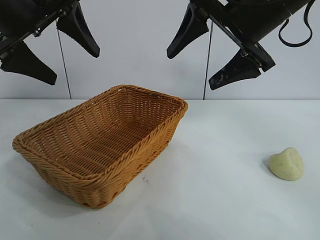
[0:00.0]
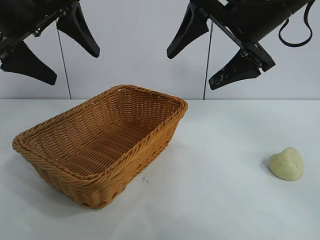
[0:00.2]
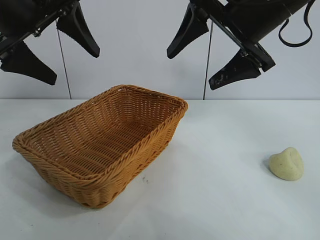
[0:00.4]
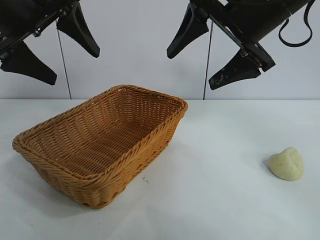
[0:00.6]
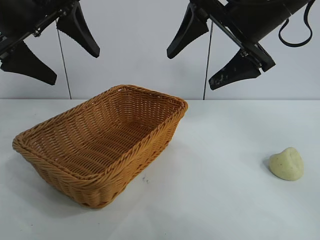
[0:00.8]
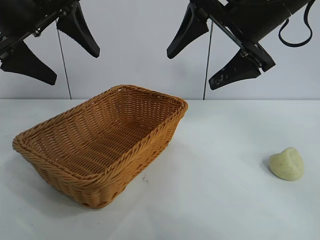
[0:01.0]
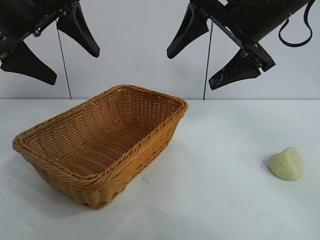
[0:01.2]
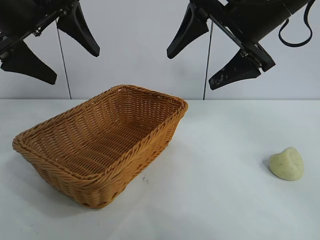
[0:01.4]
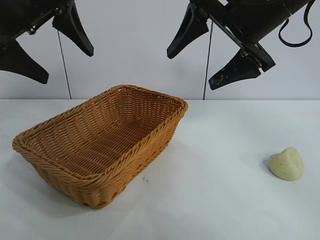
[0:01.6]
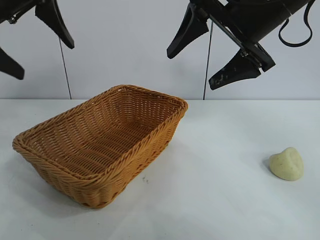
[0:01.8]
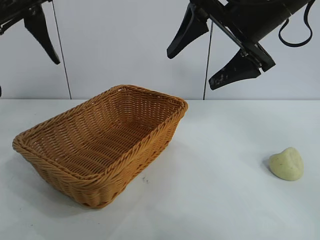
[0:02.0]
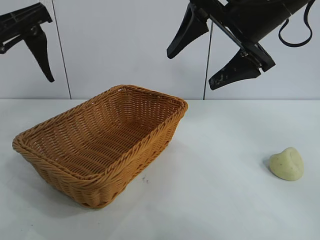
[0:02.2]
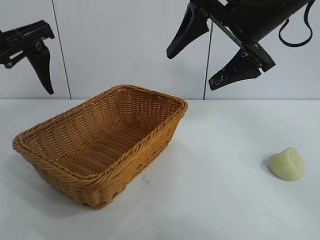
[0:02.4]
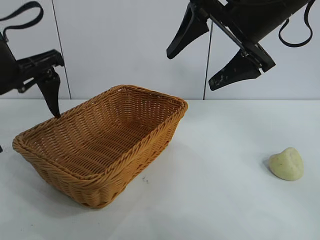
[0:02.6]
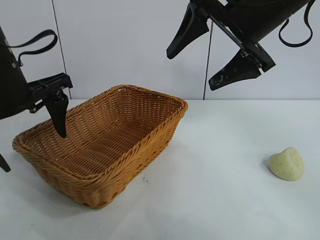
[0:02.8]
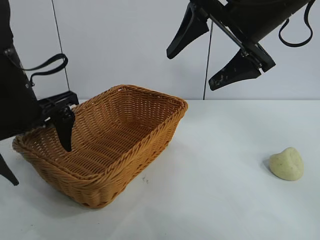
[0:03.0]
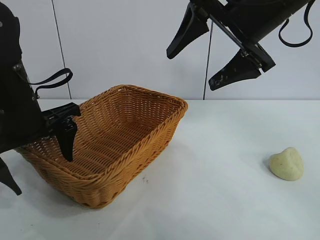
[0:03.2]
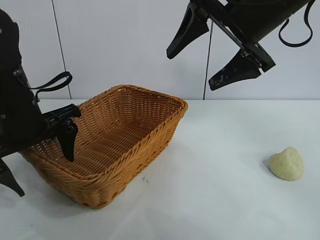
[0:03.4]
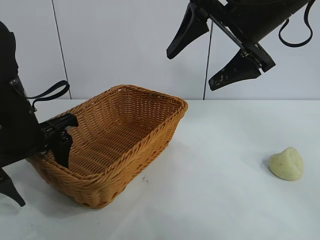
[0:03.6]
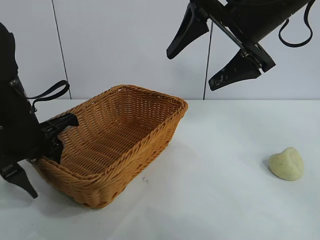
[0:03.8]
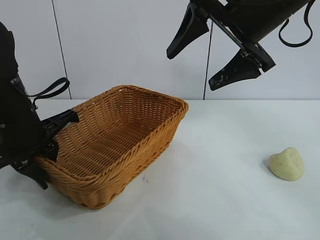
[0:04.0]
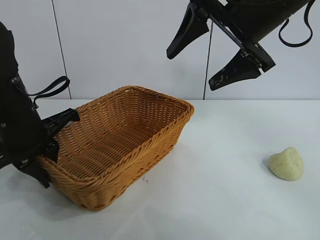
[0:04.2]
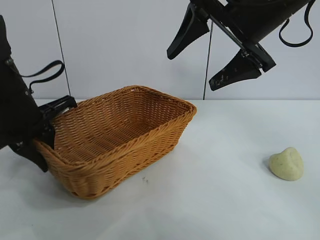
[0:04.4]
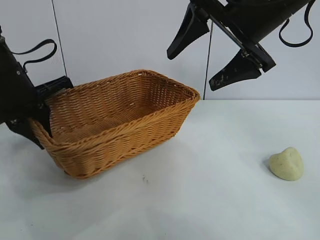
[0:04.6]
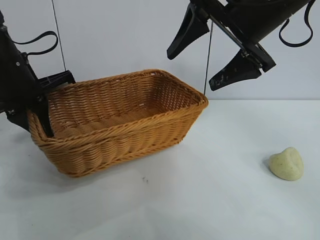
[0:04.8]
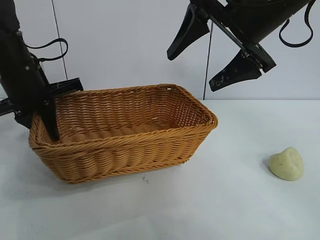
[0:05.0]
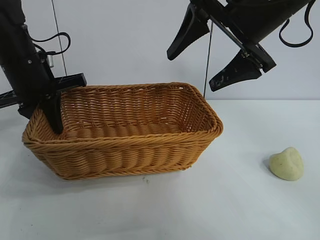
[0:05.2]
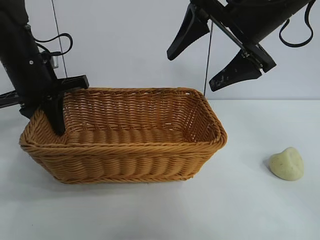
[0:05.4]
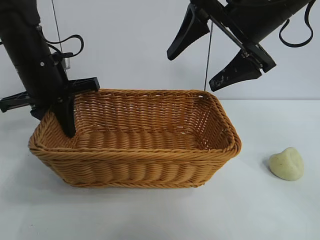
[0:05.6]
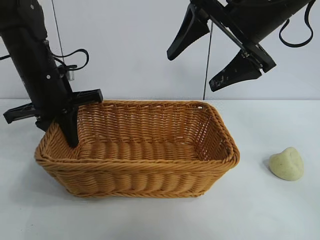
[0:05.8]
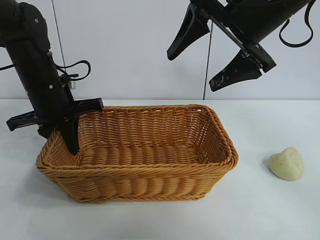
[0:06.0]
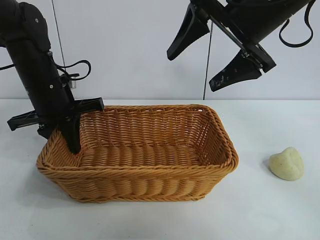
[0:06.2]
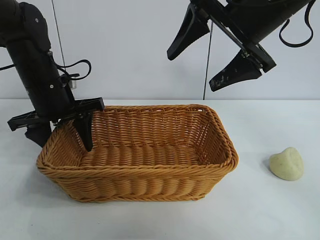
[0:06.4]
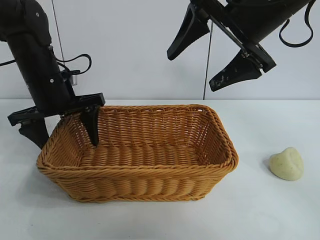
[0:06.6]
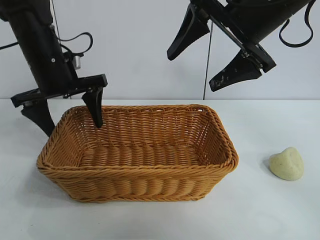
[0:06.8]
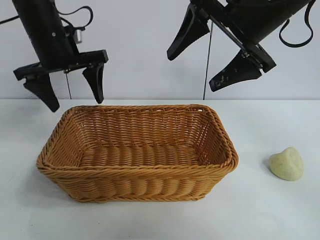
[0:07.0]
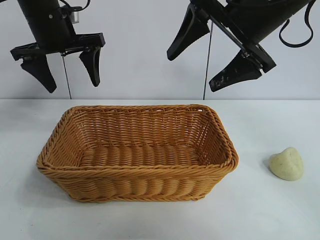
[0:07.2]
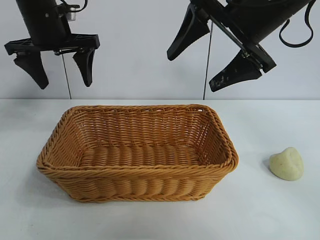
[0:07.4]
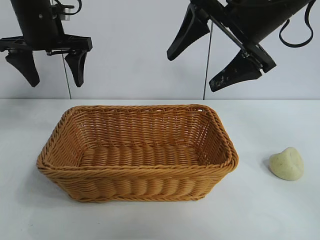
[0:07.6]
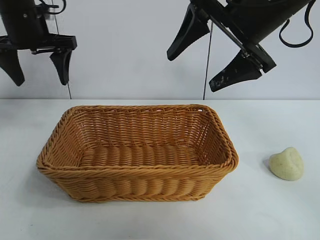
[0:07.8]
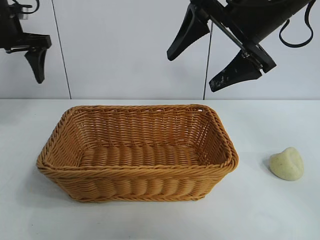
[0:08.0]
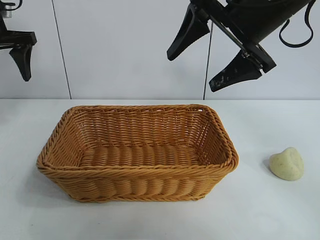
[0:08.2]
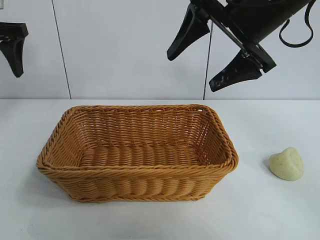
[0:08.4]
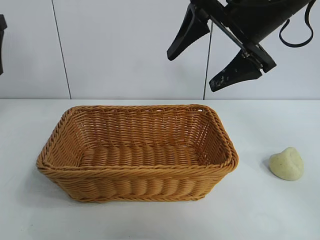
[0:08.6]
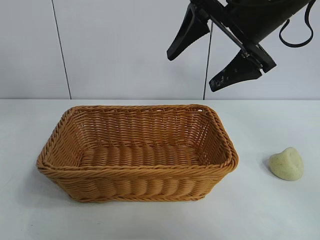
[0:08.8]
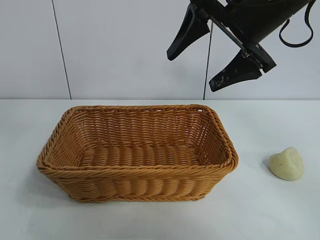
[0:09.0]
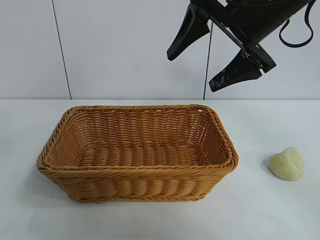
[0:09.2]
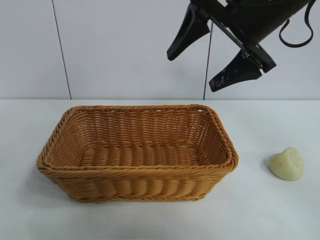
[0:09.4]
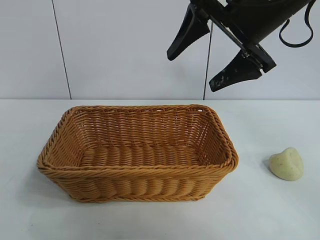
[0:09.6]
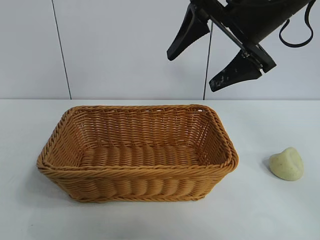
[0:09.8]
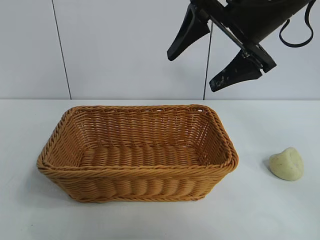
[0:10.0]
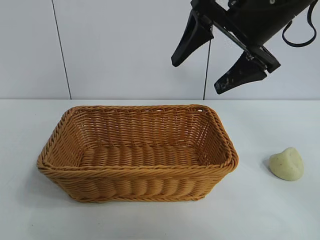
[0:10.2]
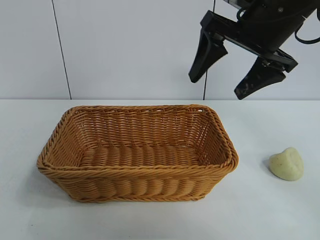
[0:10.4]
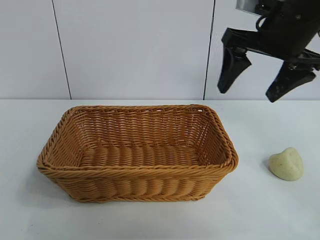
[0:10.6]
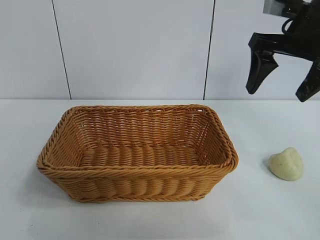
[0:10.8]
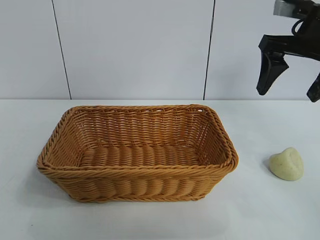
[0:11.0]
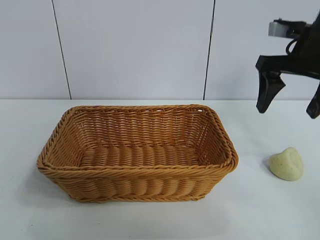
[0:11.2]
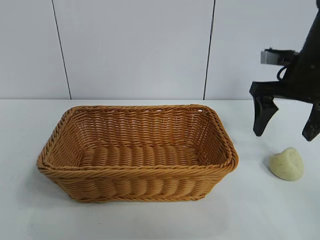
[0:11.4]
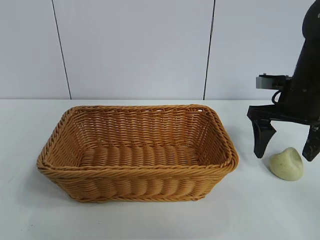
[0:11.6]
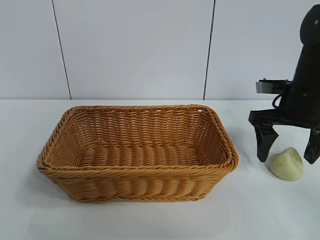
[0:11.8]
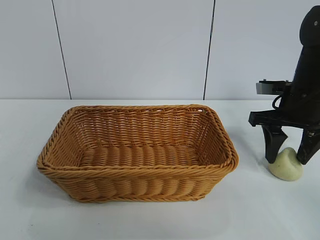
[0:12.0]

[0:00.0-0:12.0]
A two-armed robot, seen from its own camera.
Task of the whole recording: pick up the egg yolk pastry and put it into the basket.
Step, 0:01.4 to 0:04.0: Grasp the basket with left gripper.
Step, 0:04.2 to 0:06.2: Place the basket in the center of view with left gripper.

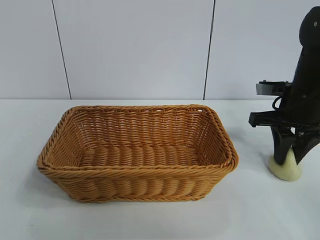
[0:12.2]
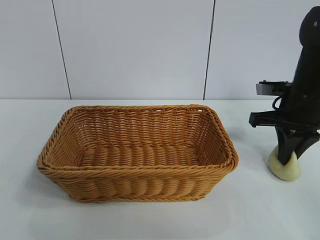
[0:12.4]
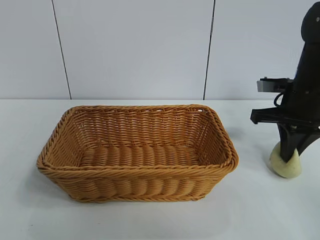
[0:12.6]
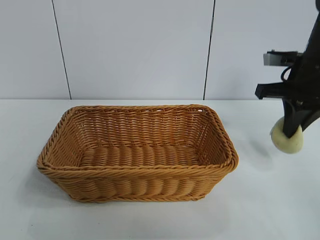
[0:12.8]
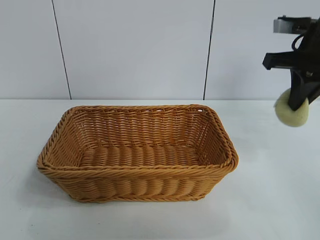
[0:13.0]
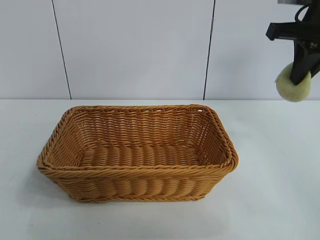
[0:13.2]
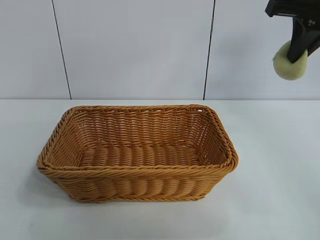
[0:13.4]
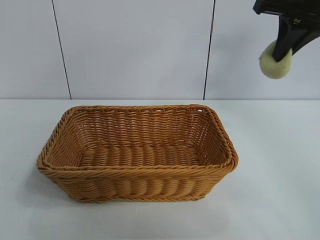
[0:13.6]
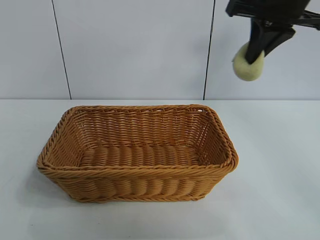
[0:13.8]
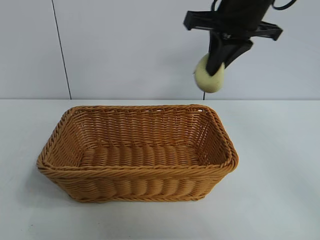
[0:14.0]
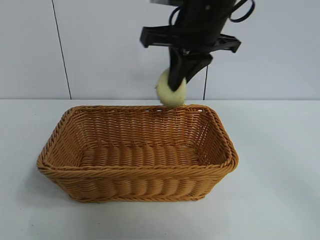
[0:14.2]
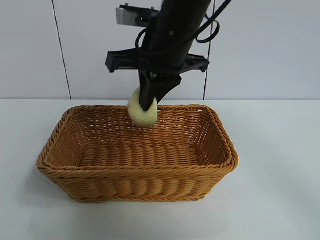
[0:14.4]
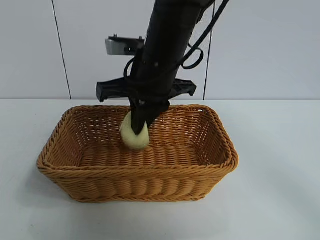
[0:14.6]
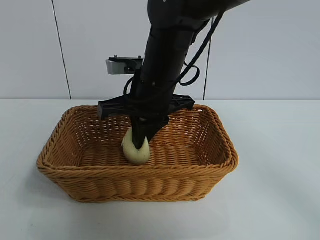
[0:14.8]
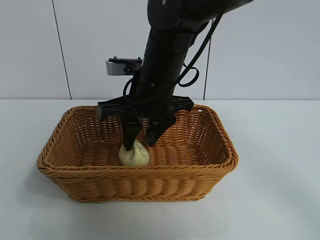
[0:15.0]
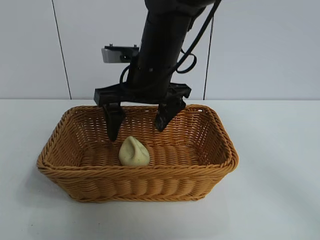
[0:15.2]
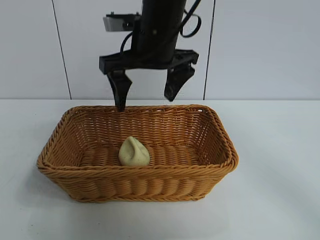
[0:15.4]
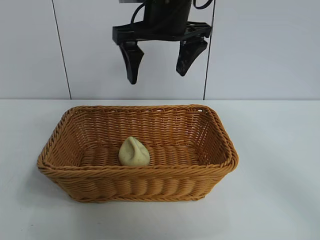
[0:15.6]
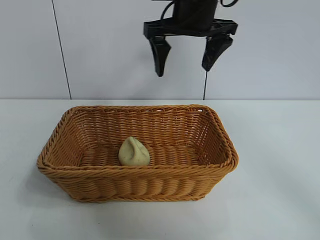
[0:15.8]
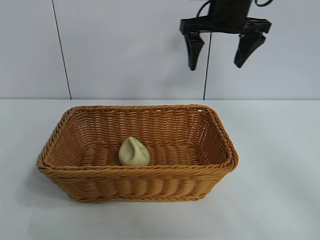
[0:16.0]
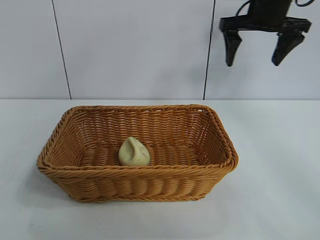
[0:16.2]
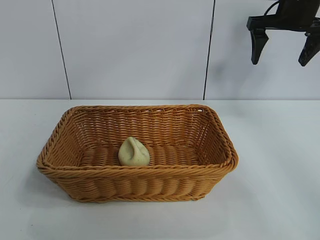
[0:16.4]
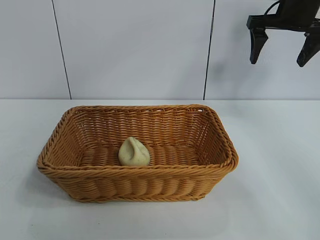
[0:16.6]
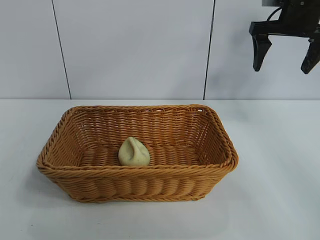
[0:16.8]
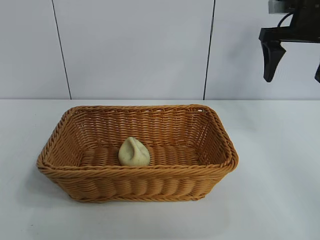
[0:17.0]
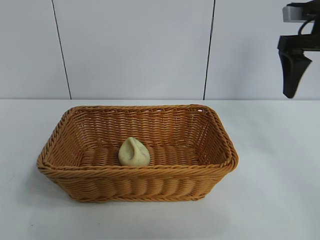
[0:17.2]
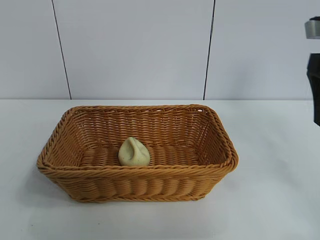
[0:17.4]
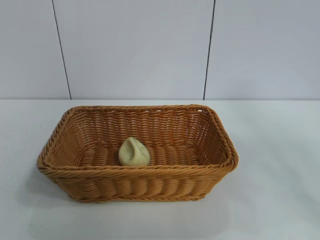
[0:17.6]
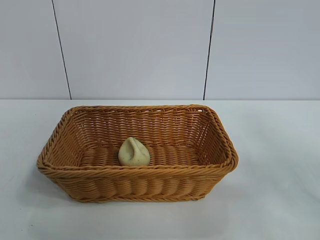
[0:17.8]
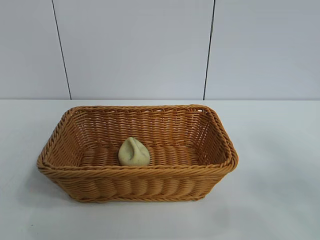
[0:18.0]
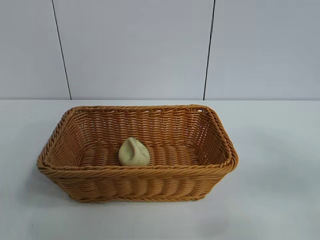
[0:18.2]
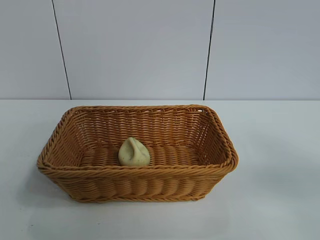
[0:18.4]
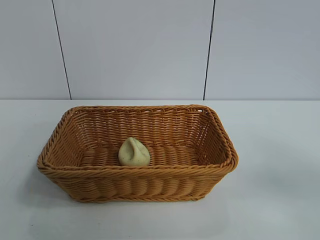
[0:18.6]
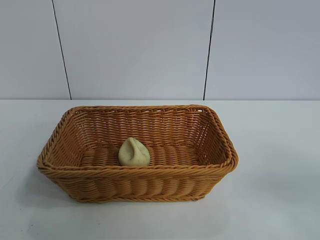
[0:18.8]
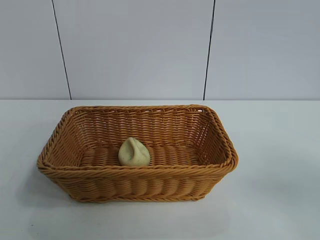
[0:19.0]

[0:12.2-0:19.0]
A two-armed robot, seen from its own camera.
Task of the whole recording: pick up the egg yolk pastry and put it into the basket.
Step, 0:12.4 to 0:14.8: Place the egg yolk pastry in the basket with right gripper.
